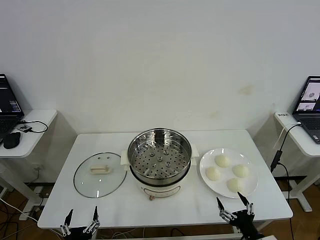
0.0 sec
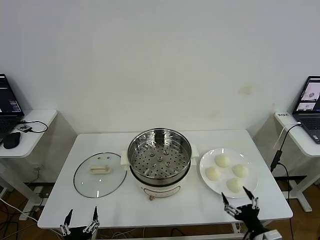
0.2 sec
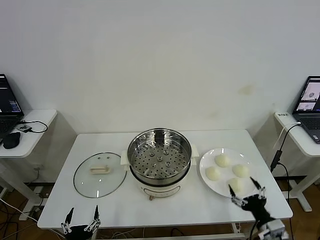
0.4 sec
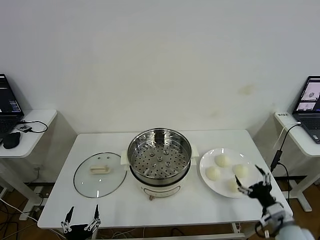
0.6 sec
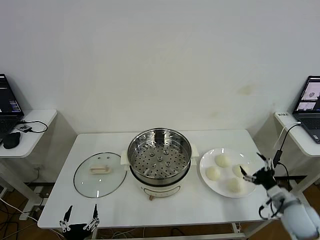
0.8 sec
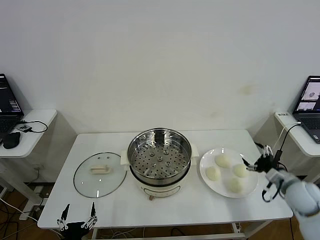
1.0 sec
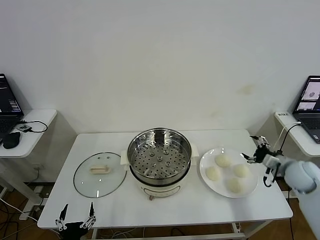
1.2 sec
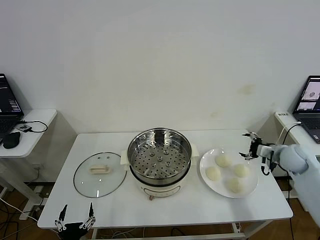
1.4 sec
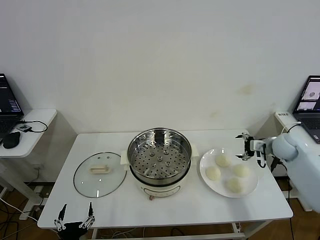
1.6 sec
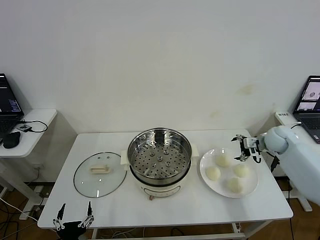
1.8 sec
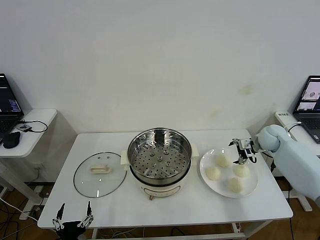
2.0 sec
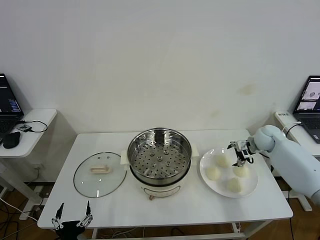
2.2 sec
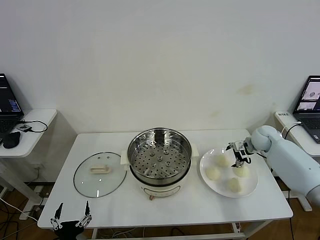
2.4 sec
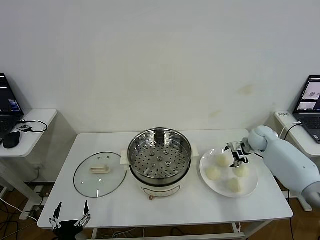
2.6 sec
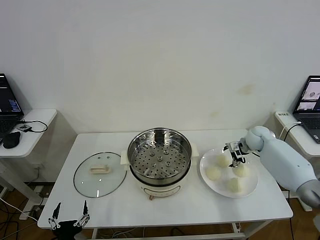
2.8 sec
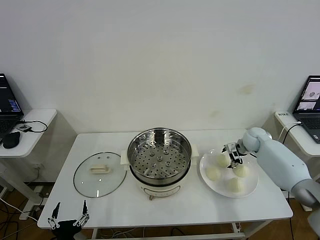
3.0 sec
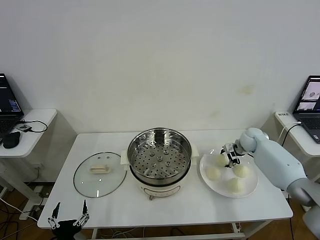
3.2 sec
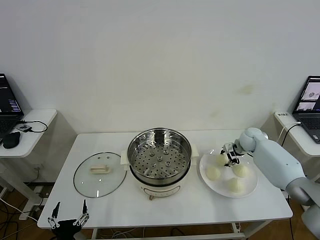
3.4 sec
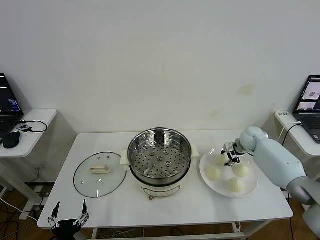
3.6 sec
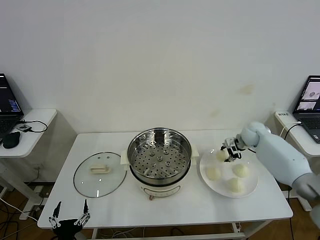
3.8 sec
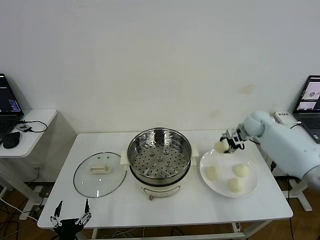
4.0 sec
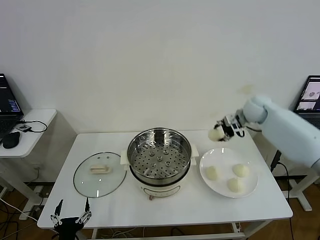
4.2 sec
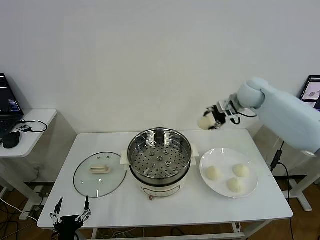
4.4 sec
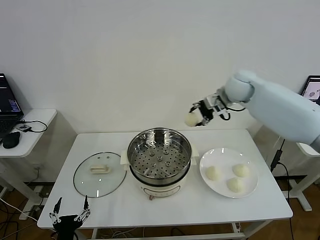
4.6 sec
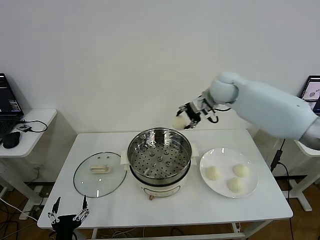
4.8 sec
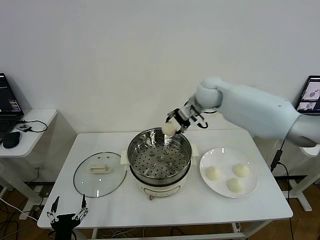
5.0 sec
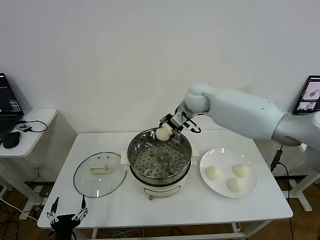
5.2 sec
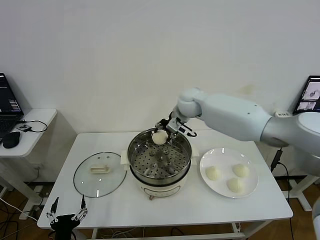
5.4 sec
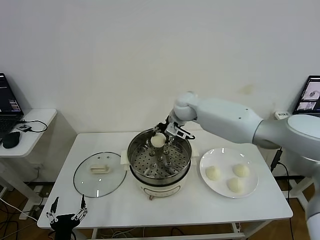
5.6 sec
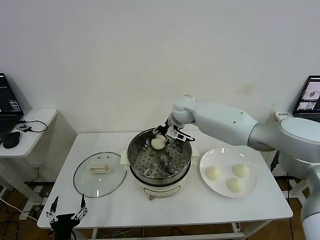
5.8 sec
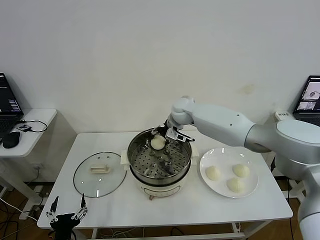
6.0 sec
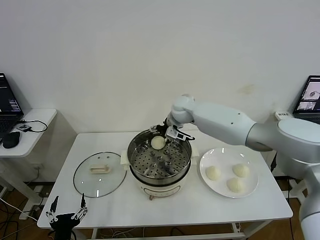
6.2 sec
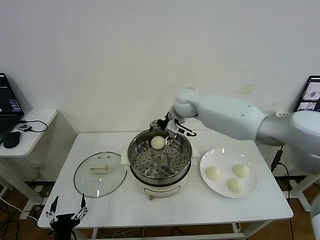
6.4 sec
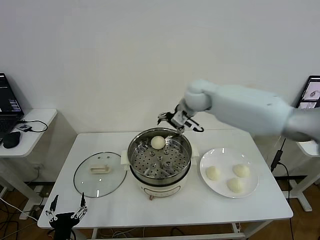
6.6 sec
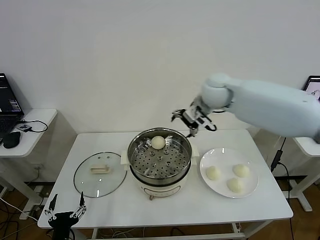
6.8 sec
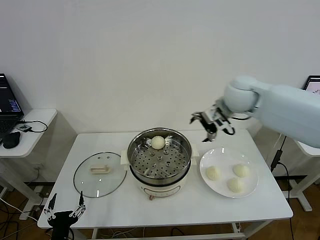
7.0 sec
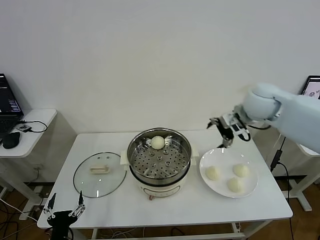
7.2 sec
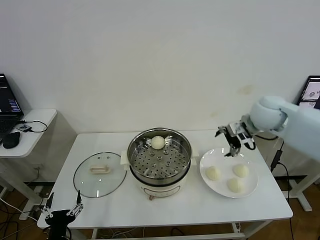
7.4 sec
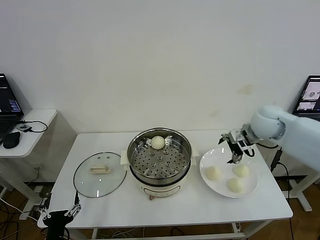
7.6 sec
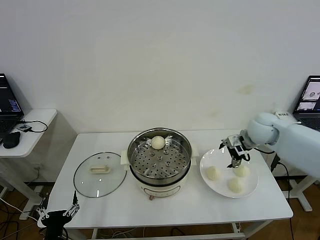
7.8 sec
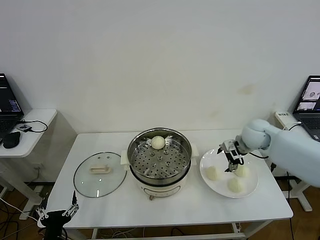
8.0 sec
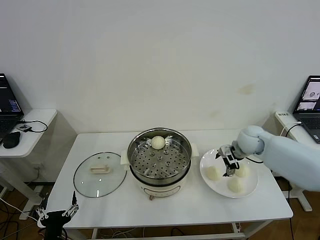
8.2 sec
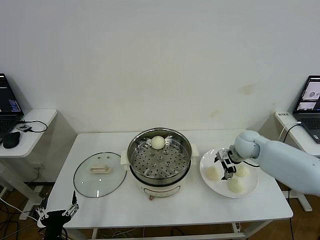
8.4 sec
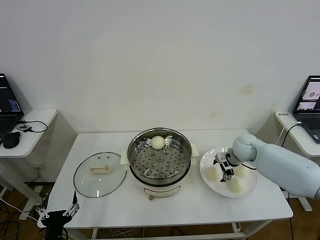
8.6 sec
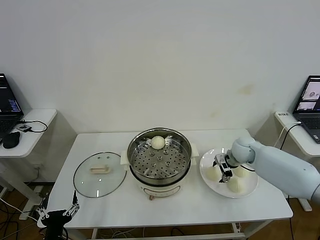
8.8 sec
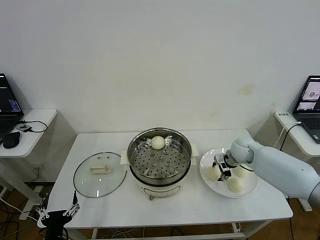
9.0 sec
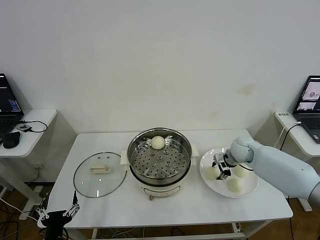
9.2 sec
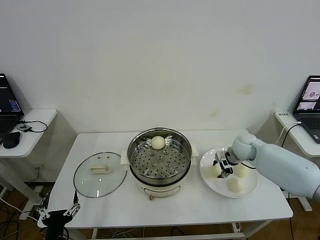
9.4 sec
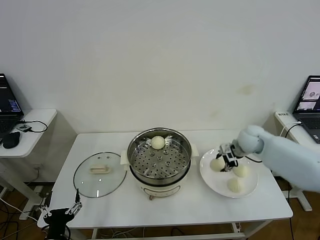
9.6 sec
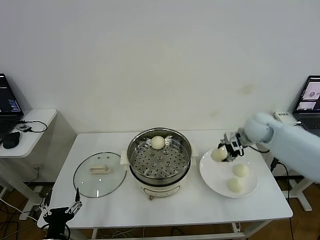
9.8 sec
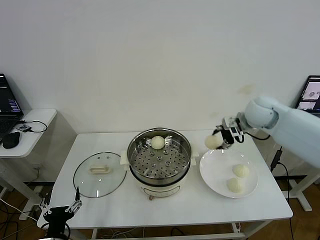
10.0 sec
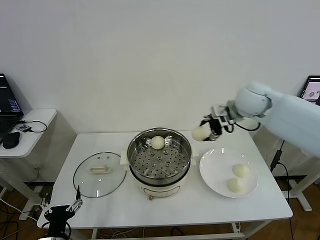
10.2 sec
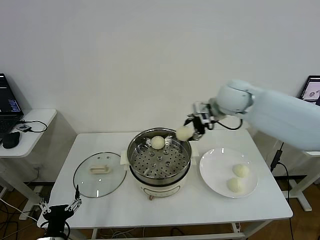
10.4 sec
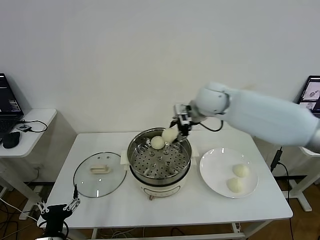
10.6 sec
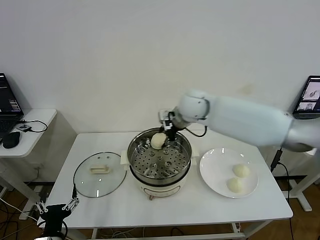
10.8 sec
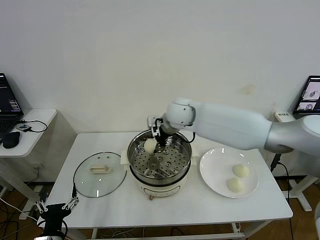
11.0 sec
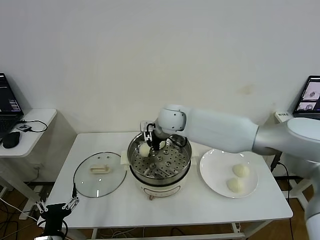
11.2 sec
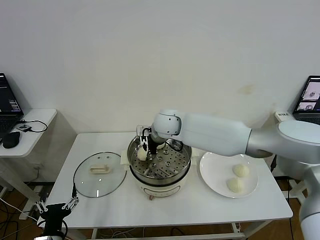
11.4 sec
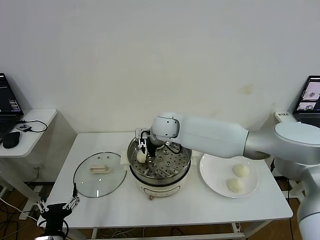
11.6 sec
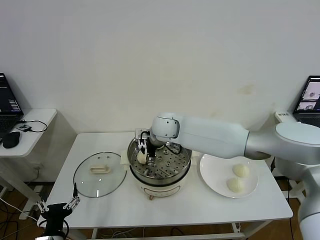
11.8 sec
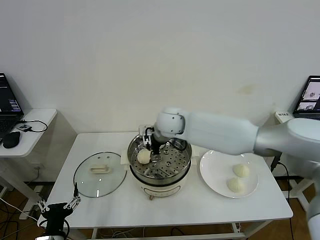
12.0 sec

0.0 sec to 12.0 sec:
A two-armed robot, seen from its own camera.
Step, 0.0 sec to 3.4 sec: Grasp the baozi in the plate with right gripper.
Step, 3.6 sec to 6.0 sec: Place the baozi on the steamer with right gripper.
Step, 6.2 sec to 9.2 sec: Grasp the baozi in the plate with right gripper.
Step, 9.6 sec to 11.4 sec: Place the baozi on the steamer with right gripper.
1.6 sec to 3.0 sec: The right gripper heads forward, downward and to the left, covering roughly 10 cm.
3.0 sec to 4.4 sec: The right gripper travels upward and to the left by about 25 cm, and closes up.
4.4 sec to 6.0 sec: The right gripper is displaced to the left and downward by approximately 20 cm, and opens its fingers.
6.0 sec to 7.6 sec: The right gripper travels to the right and backward by some 25 cm.
7.6 sec to 9.0 sec: The right gripper shifts about 15 cm downward, and closes up.
9.0 sec to 10.4 sec: The right gripper shifts roughly 25 cm upward and to the left.
10.4 sec to 12.0 sec: The right gripper moves to the left and downward, roughly 15 cm, and opens.

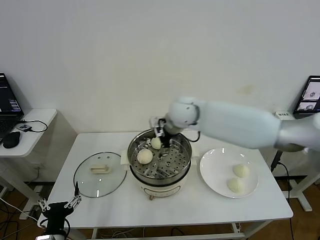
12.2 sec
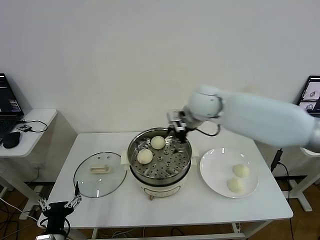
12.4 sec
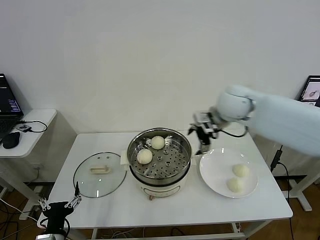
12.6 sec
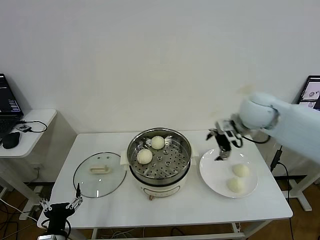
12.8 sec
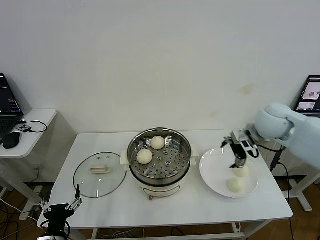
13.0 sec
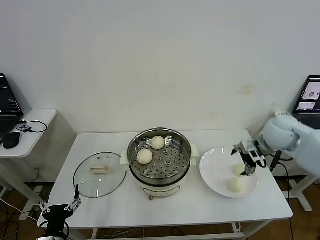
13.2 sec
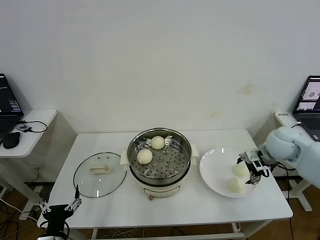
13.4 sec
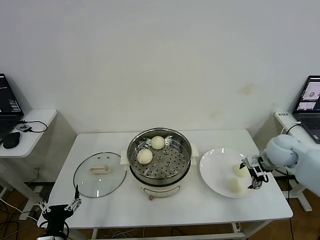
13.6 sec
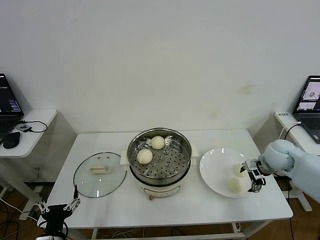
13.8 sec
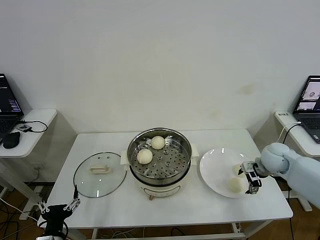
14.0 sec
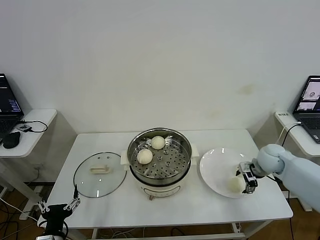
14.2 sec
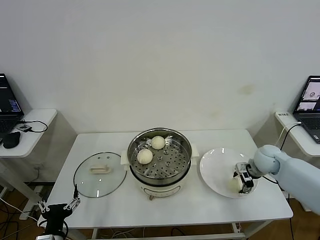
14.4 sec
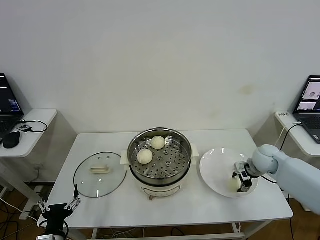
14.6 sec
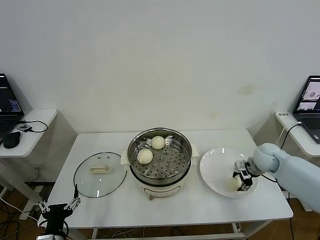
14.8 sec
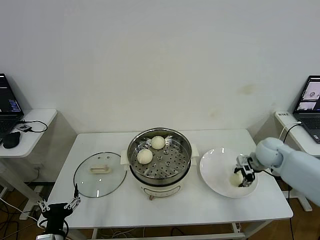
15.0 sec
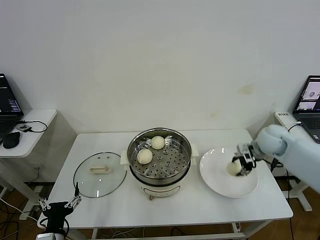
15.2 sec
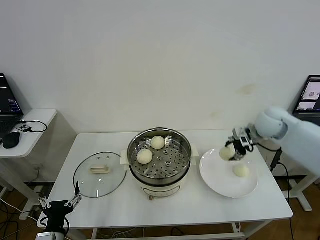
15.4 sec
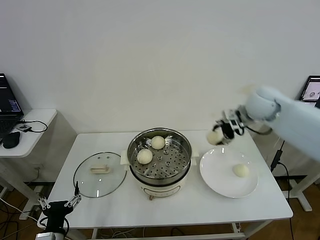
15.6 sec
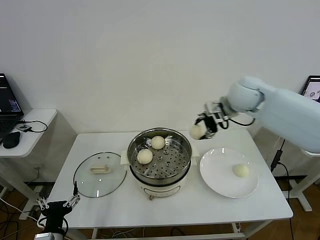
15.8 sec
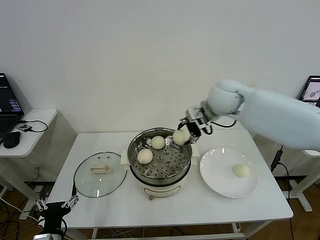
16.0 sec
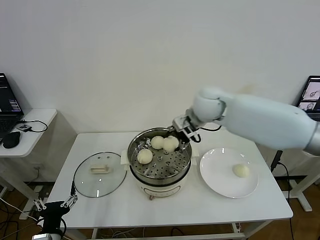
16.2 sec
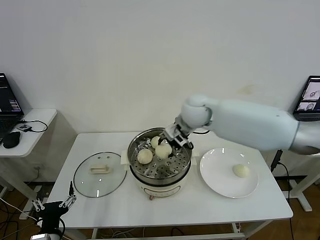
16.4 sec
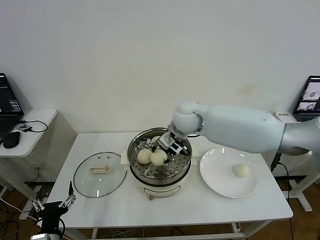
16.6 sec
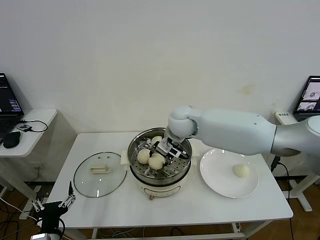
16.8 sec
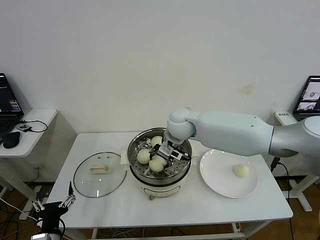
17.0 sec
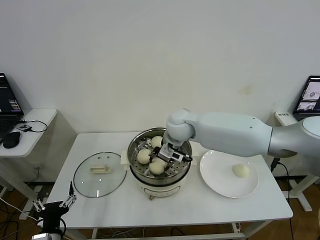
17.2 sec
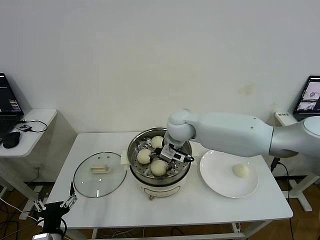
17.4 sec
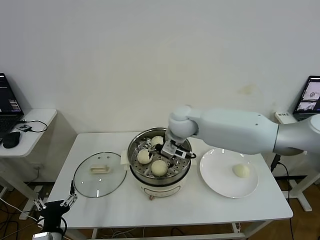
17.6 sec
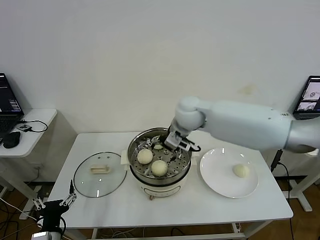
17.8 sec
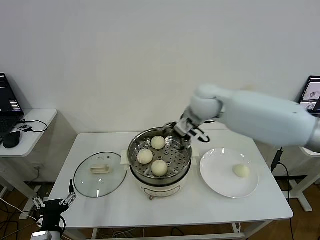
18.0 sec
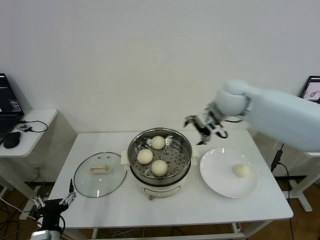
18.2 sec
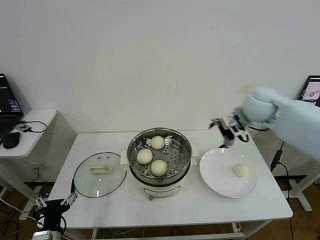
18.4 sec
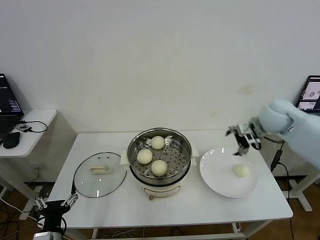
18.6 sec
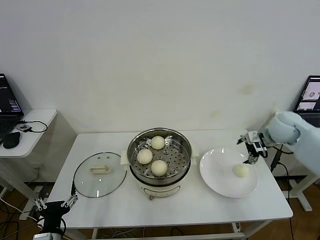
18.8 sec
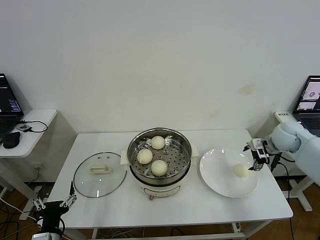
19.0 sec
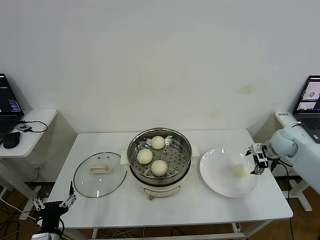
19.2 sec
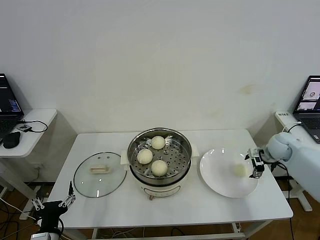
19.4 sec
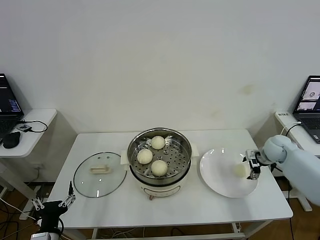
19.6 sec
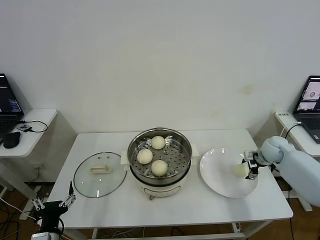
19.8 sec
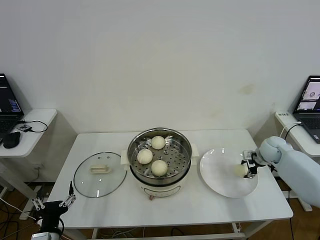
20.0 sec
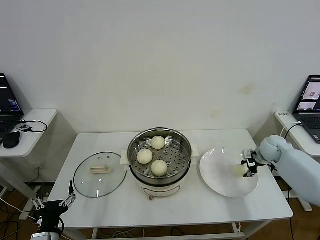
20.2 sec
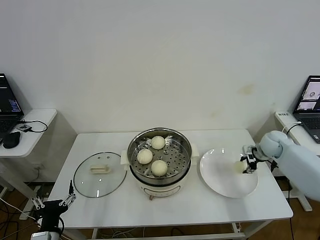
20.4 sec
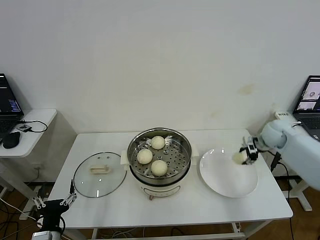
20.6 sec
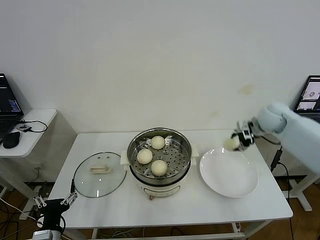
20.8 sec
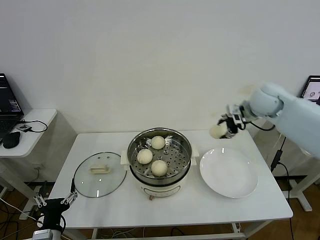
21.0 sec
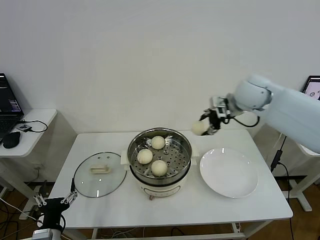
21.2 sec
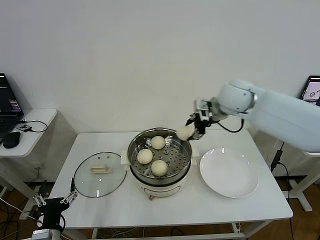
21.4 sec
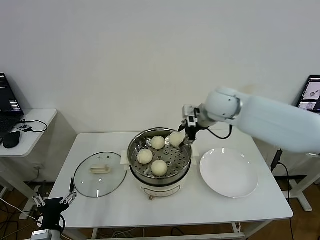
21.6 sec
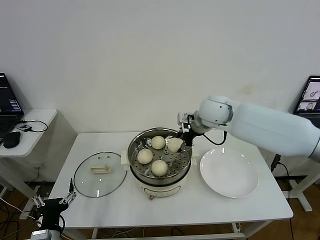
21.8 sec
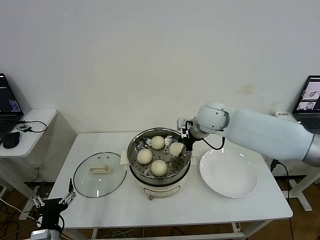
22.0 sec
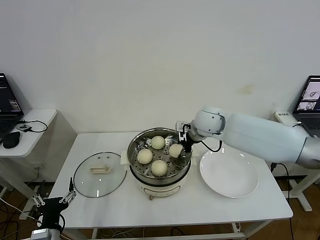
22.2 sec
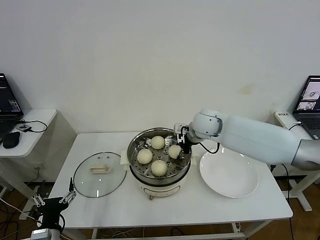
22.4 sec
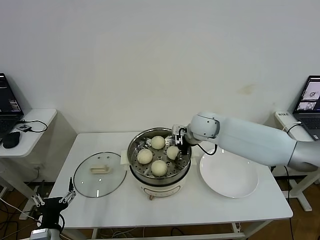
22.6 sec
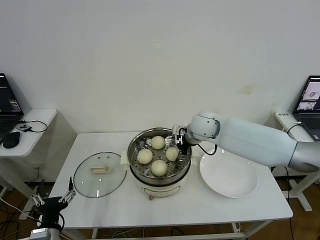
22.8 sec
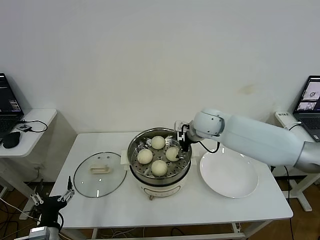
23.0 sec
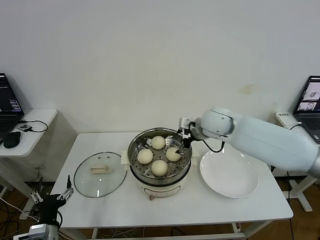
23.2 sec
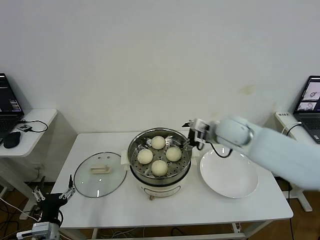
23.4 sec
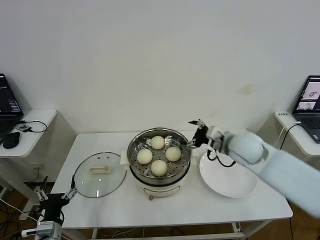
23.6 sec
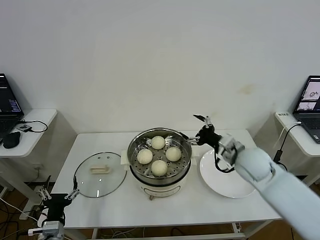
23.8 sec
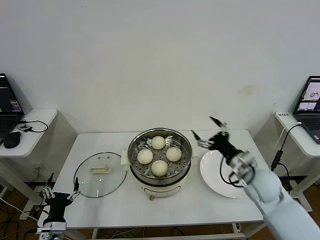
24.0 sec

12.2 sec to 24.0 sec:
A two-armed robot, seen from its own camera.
Step, 12.2 sec to 14.4 sec: Grasp the baozi in the plate with right gripper.
Step, 14.8 sec to 17.4 sec: Place the baozi on the steamer with right gripper.
Step, 17.6 sec to 20.0 sec: Grasp the baozi in the plate with right gripper.
Step, 20.2 sec to 22.6 sec: Place the baozi on the steamer with right gripper.
12.2 sec to 13.6 sec: The right gripper shifts approximately 35 cm to the right and downward.
13.6 sec to 15.2 sec: The right gripper moves approximately 5 cm downward and comes back, and closes its fingers.
15.2 sec to 16.6 sec: The right gripper travels to the left by roughly 30 cm.
16.6 sec to 18.2 sec: The right gripper shifts approximately 15 cm to the right and upward, and opens up.
18.2 sec to 19.6 sec: The right gripper heads to the right and downward, covering some 30 cm.
19.6 sec to 21.0 sec: The right gripper heads upward and to the left, covering approximately 25 cm, and closes its fingers.
21.0 sec to 22.6 sec: The right gripper goes roughly 20 cm to the left and downward.
22.6 sec to 24.0 sec: The right gripper travels backward, to the right and downward by approximately 25 cm, and opens. The left gripper moves roughly 5 cm.
